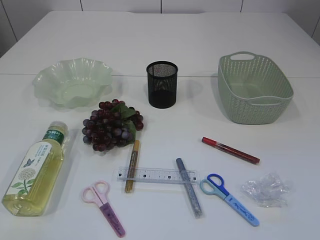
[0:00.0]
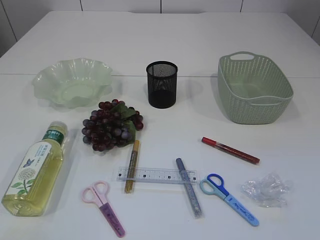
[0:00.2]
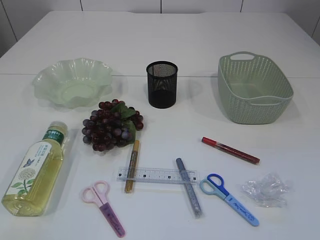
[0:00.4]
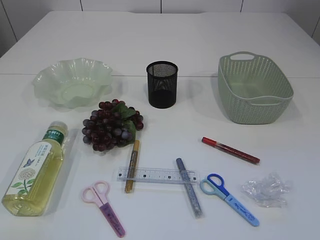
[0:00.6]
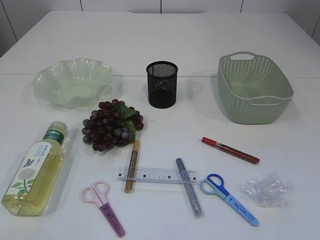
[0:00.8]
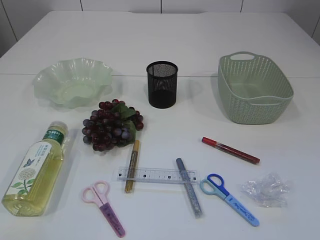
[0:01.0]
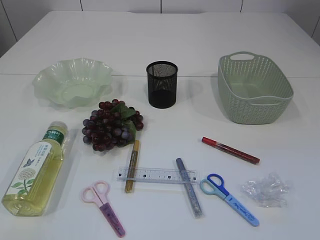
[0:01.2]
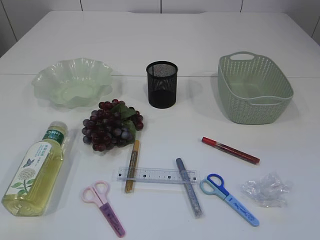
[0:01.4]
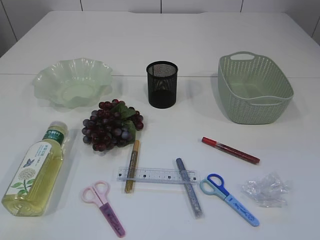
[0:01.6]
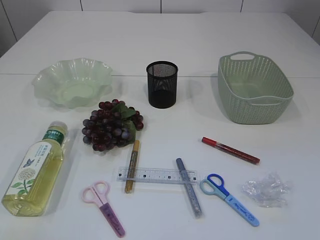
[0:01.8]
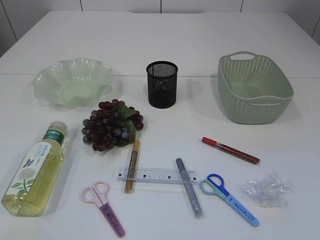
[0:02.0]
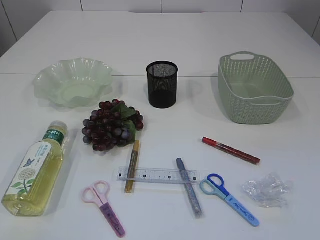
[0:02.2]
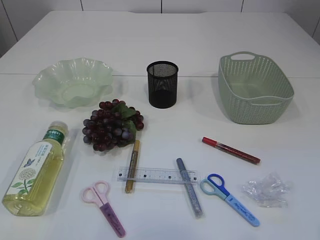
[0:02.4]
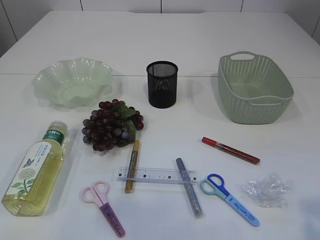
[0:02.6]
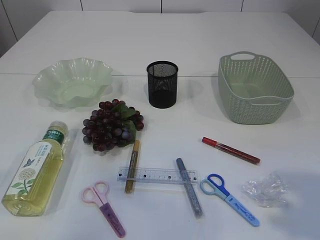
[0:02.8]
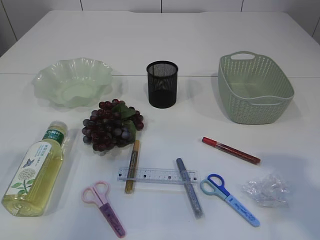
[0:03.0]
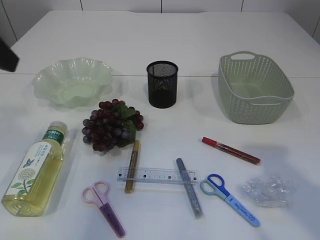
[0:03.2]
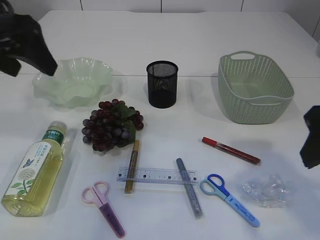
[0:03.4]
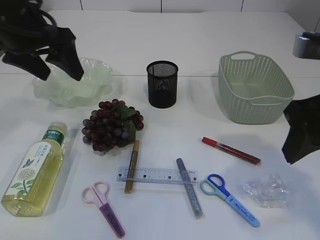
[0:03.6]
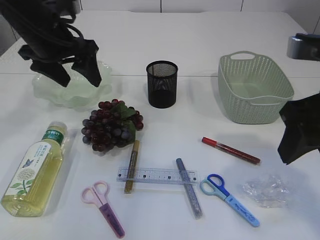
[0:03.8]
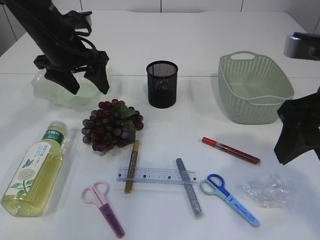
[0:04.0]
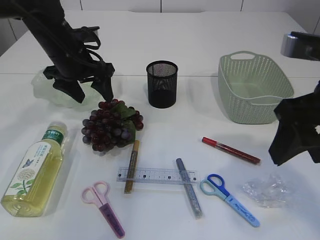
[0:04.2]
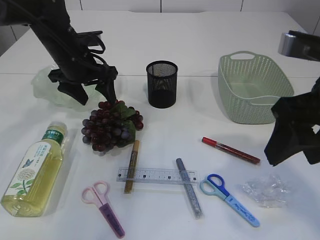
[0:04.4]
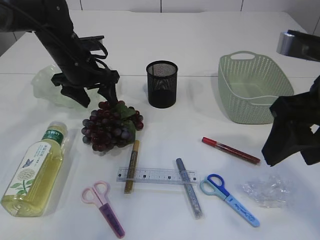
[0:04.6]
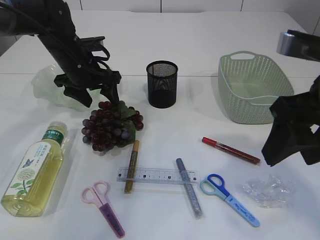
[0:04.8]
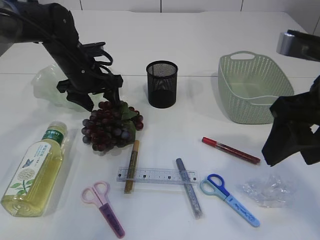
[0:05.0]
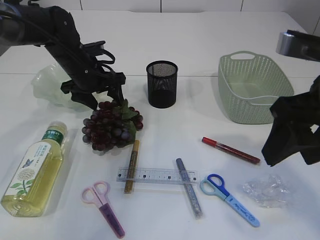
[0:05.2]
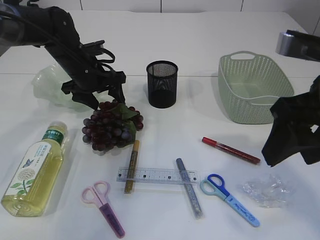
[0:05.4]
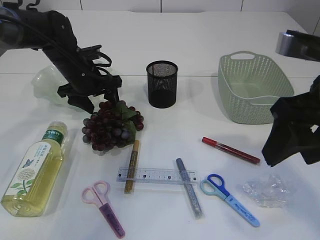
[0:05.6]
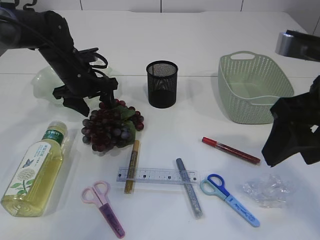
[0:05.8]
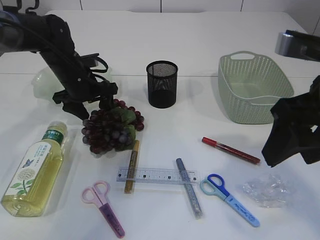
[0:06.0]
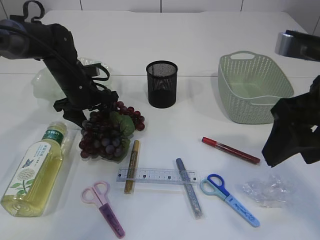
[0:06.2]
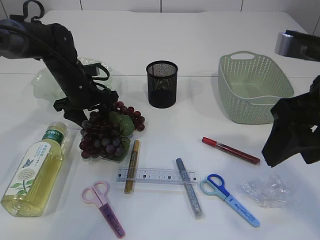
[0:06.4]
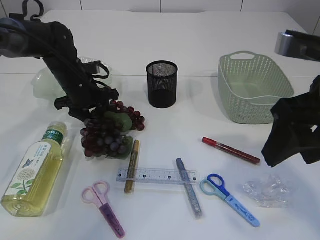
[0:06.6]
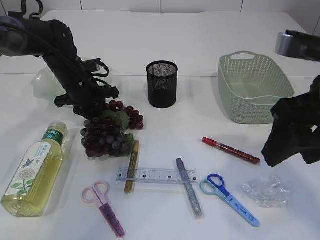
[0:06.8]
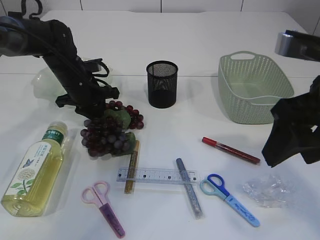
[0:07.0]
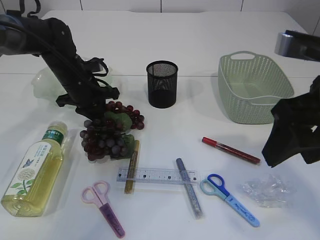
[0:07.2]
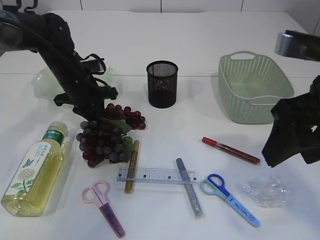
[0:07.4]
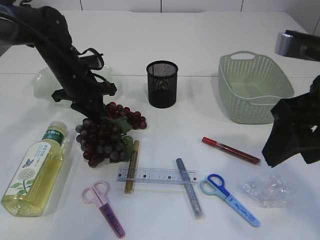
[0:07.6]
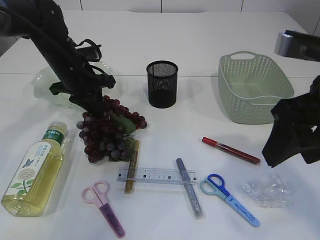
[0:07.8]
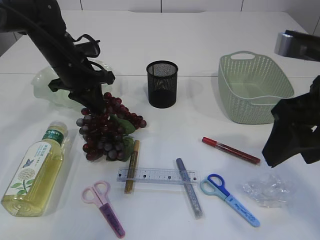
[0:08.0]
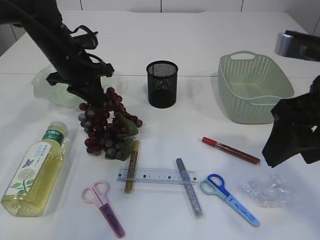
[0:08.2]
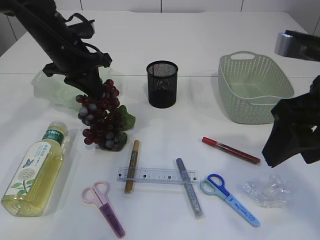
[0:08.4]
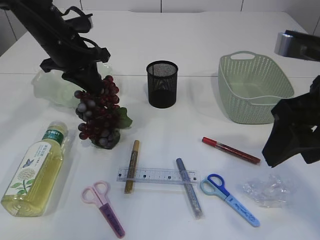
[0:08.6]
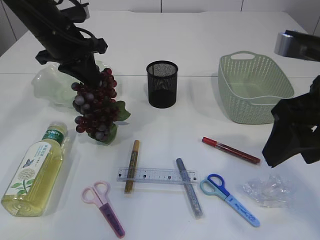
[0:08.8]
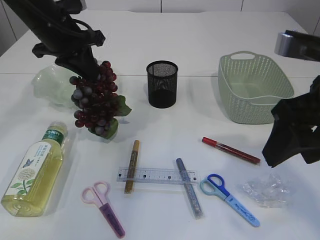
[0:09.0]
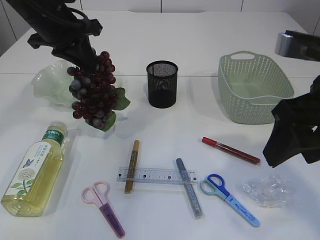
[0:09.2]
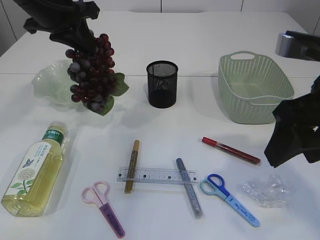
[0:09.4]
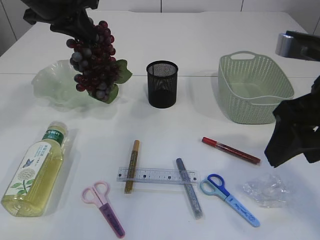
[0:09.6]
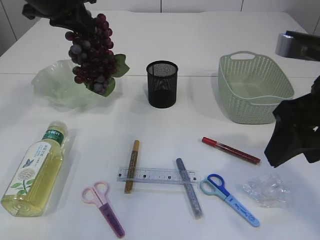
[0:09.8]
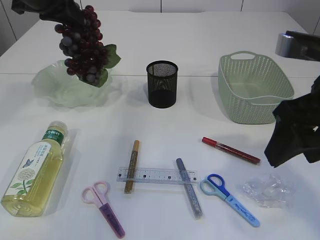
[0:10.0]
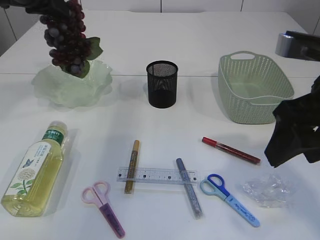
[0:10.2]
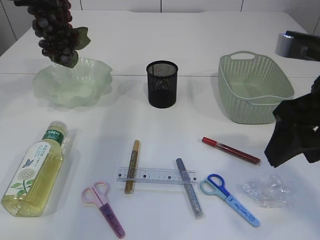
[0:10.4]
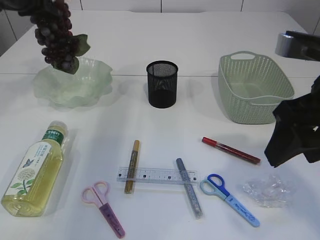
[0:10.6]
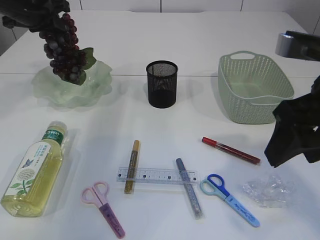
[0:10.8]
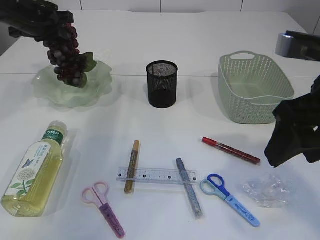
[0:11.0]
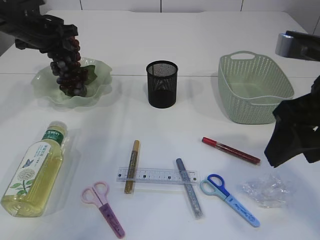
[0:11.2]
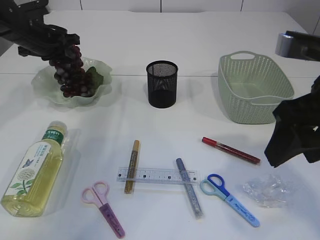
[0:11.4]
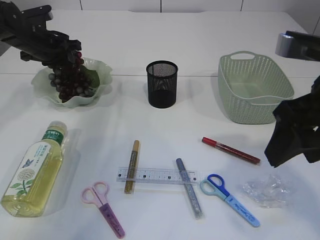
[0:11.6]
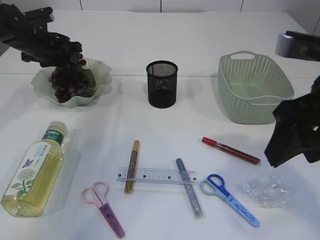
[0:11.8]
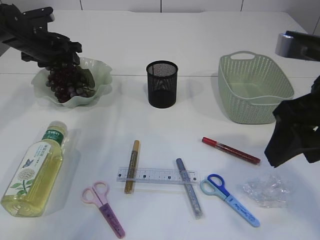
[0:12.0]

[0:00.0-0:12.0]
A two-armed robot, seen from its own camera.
Step, 0:00.0 to 0:09.0: Pick up the grapes.
0:01.6 to 0:03.0: Both grippers move forward and upward, about 20 cm. The right gripper opens.
0:03.0 to 0:04.4: The left gripper goes some 35 cm forward, downward and to the right; the right gripper heads forward and to the left, covering approximately 10 cm.
0:04.4 to 0:06.0: The left gripper is displaced downward by approximately 5 cm.
0:06.0 to 0:07.6: The left gripper closes up.
0:07.6 to 0:09.0: The left gripper goes about 10 cm upward.
0:09.0 to 0:10.4: The left gripper travels to the left and upward by some 10 cm.
0:10.4 to 0:12.0: The left gripper moves downward and forward, roughly 15 cm, and opens its fingers.

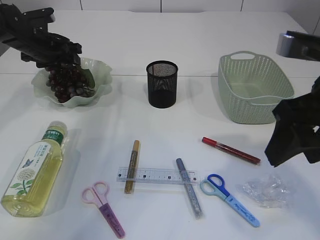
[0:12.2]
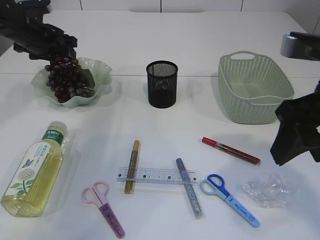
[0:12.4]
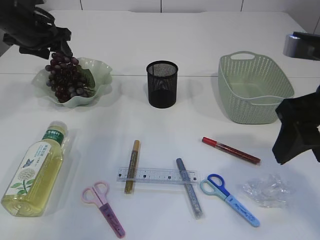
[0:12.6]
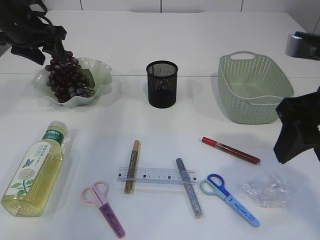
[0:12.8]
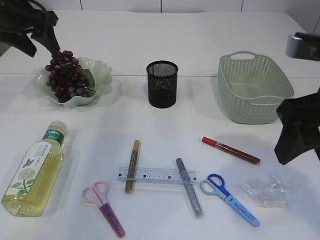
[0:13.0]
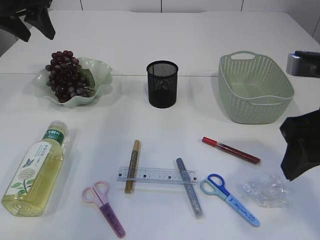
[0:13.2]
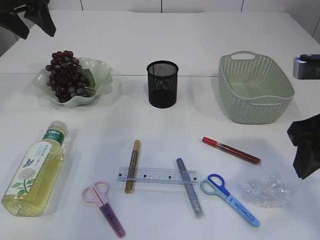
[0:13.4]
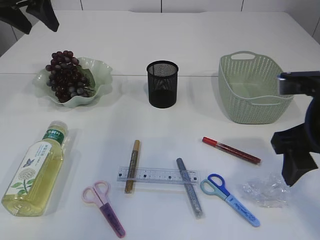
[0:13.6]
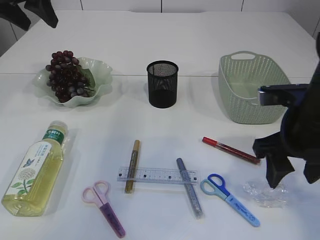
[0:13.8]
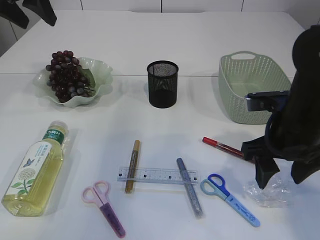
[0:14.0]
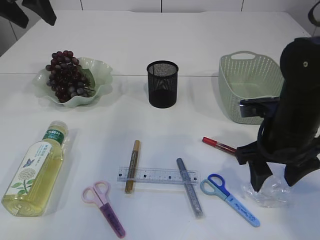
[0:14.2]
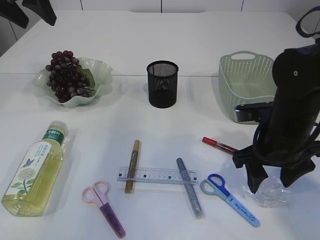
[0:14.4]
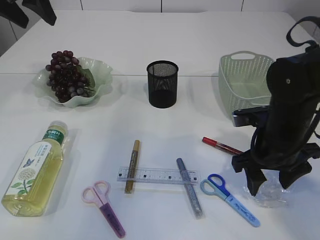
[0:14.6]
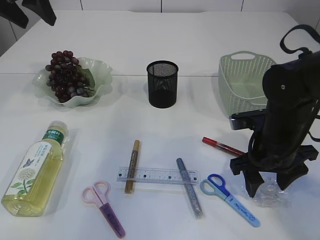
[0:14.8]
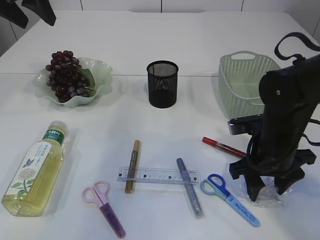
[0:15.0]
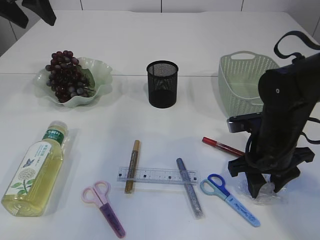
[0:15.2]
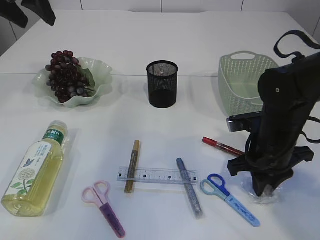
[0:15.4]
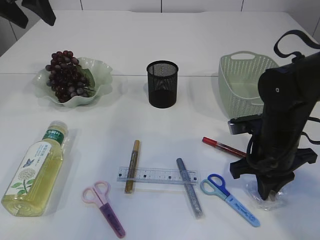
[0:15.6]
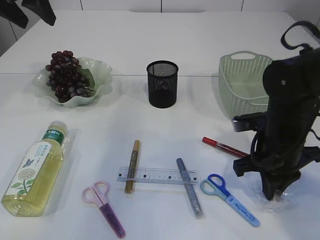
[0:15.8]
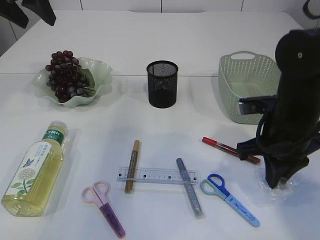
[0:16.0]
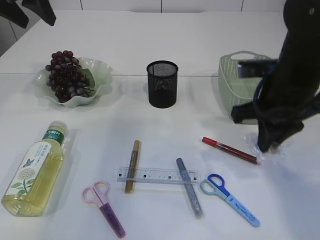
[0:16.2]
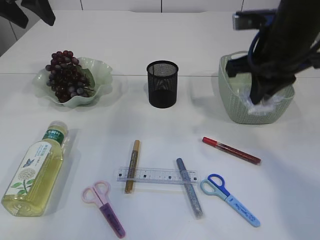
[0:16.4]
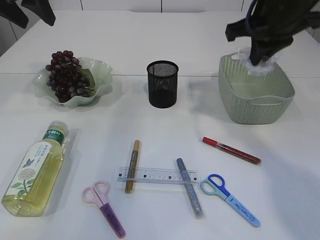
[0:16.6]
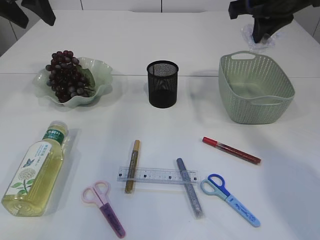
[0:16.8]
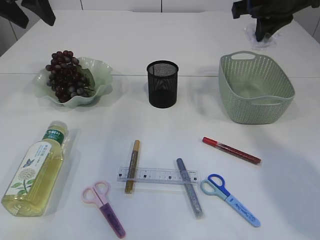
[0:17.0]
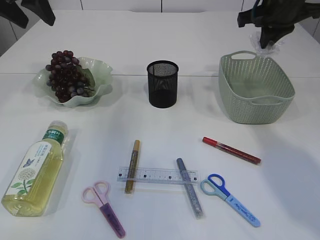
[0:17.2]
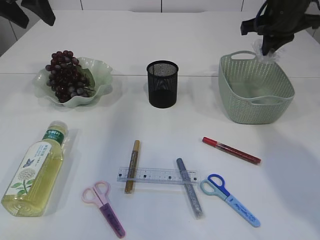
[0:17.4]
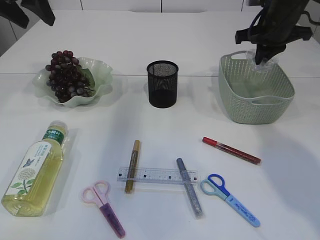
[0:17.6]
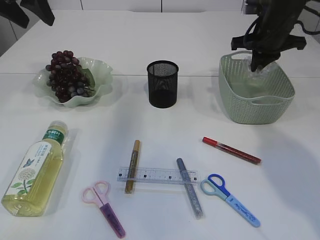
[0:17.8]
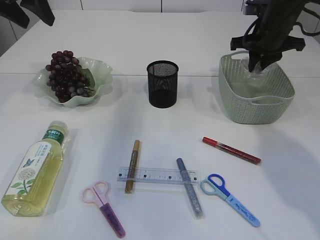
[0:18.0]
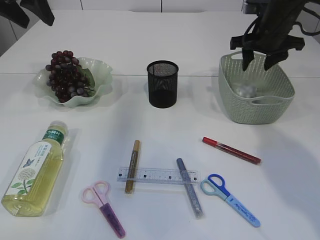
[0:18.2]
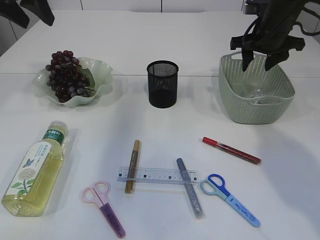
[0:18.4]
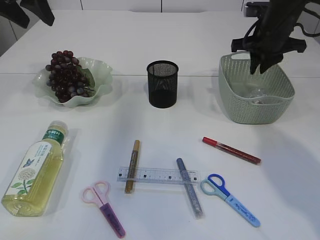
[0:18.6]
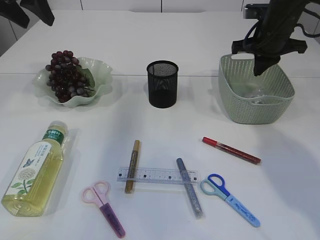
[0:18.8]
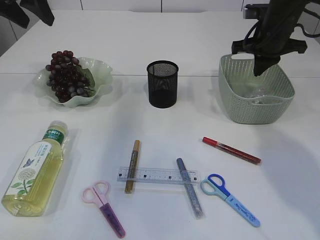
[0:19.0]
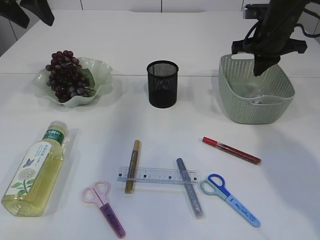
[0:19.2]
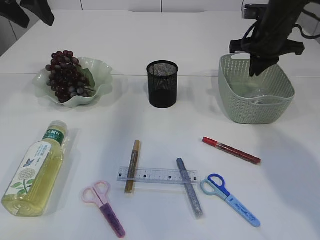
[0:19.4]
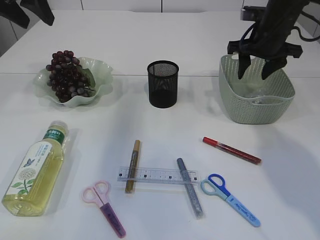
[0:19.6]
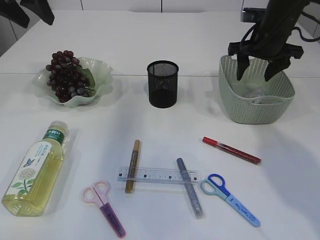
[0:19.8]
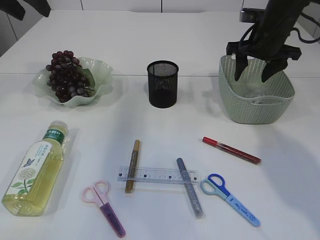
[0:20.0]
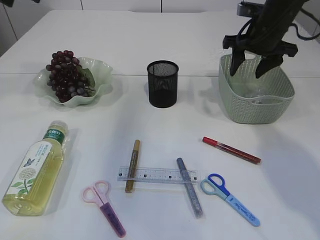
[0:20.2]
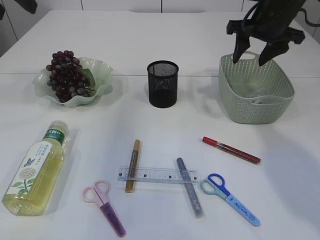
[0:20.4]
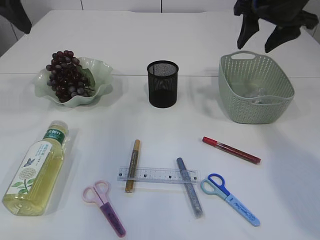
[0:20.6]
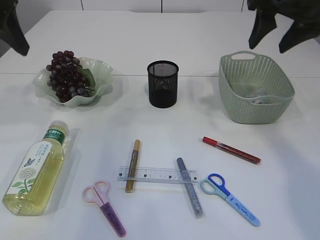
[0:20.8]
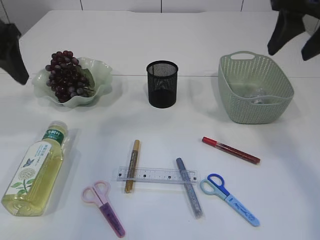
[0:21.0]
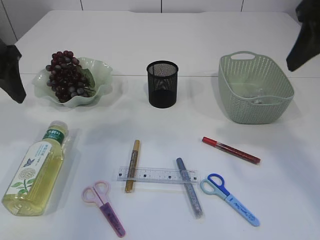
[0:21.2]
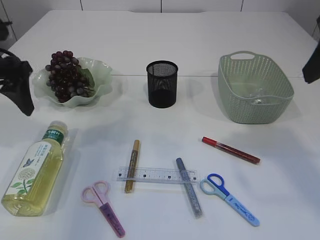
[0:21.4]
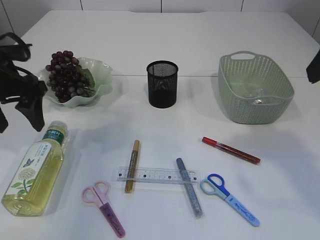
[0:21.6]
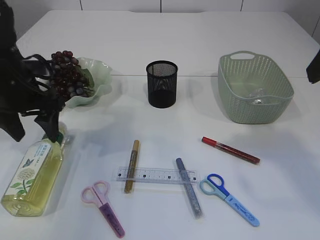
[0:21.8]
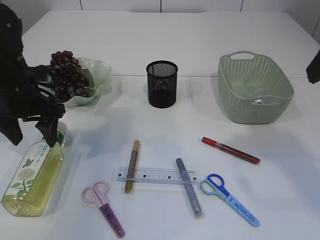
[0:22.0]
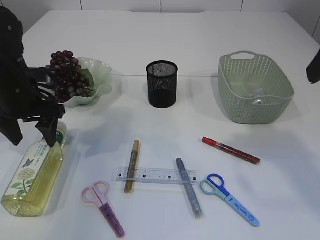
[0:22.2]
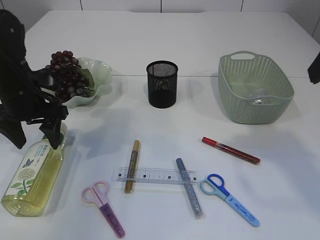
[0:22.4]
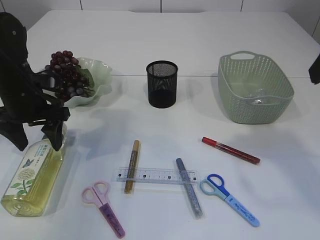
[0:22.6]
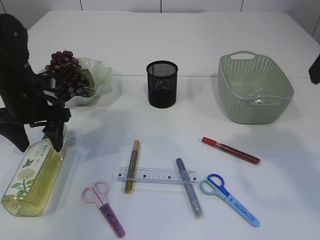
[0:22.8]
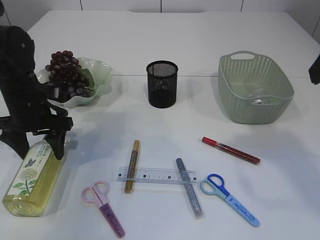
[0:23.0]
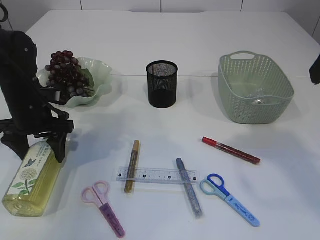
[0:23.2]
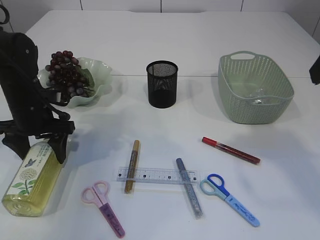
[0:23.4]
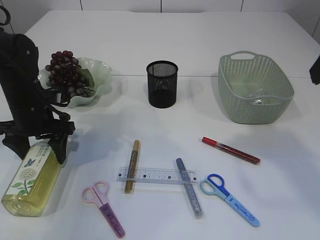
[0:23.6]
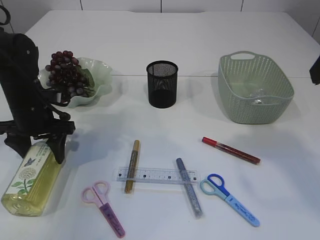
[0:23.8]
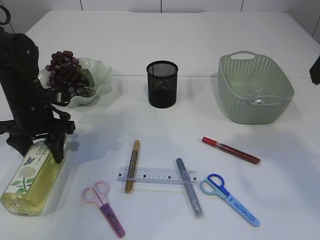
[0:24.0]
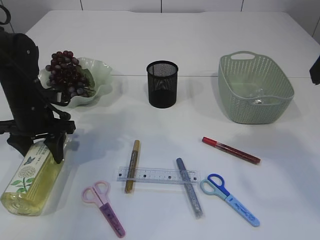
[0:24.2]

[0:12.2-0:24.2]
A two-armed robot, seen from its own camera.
Step, 0:13.2 to 0:16.2: Pick up the plastic.
Step, 0:16.4 to 0:20.6: Place the plastic in the basket.
0:12.2 to 0:13.8: The right gripper travels downward by approximately 10 cm. The left gripper shifts some 20 cm upward and backward.
0:13.8 to 0:15.2: The right gripper heads downward and forward, covering approximately 10 cm.
0:15.2 to 0:16.6: The right gripper is displaced upward by roughly 20 cm, and closes.
0:16.6 to 0:18.2: The right gripper travels forward, downward and to the right by roughly 15 cm, and opens.
0:18.2 to 0:19.8: The right gripper closes, then opens again.
0:19.8 to 0:21.2: The right gripper goes approximately 25 cm backward and upward. Meanwhile the left gripper shifts roughly 10 cm backward and downward.
0:21.2 to 0:22.6: The left gripper goes approximately 15 cm downward.
0:22.6 to 0:24.2: The grippers make only small movements.
